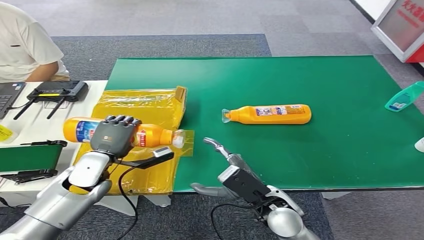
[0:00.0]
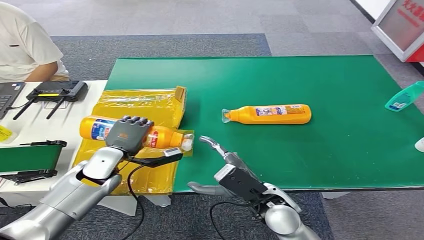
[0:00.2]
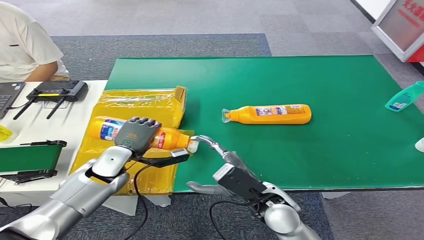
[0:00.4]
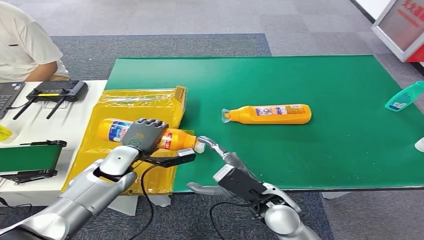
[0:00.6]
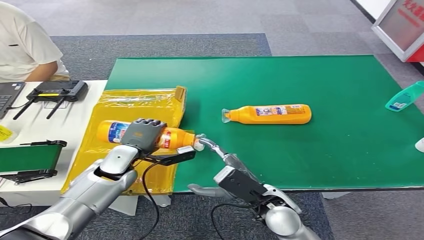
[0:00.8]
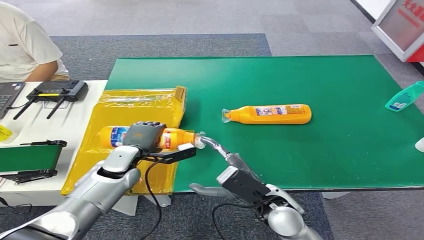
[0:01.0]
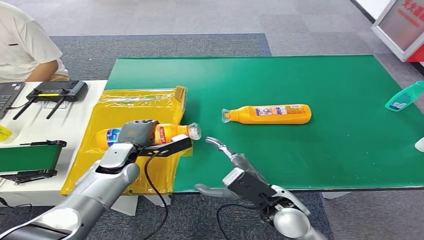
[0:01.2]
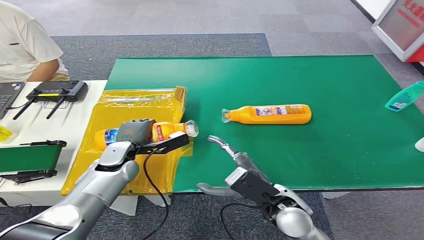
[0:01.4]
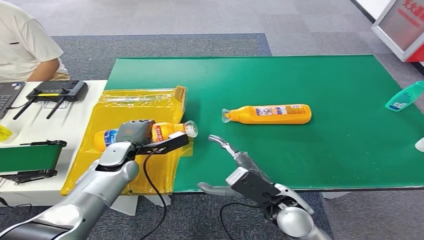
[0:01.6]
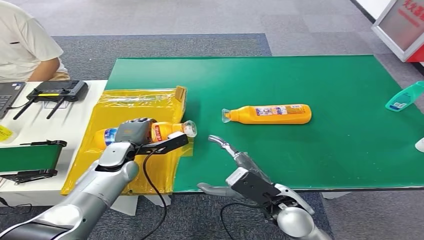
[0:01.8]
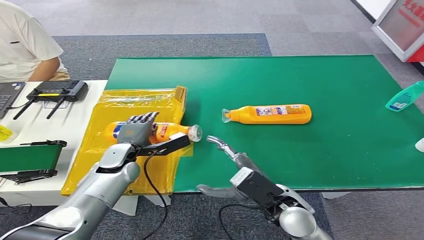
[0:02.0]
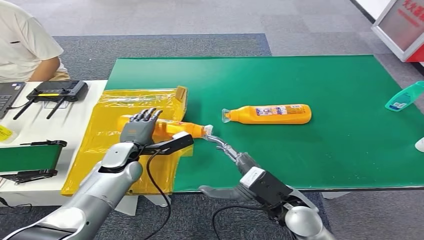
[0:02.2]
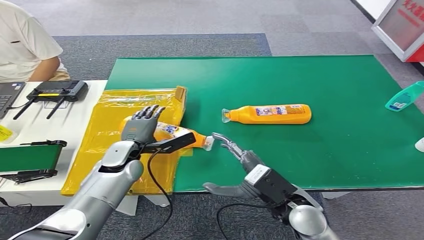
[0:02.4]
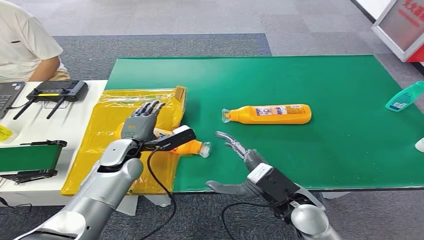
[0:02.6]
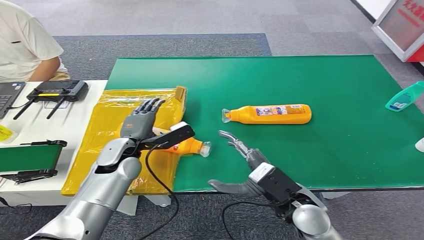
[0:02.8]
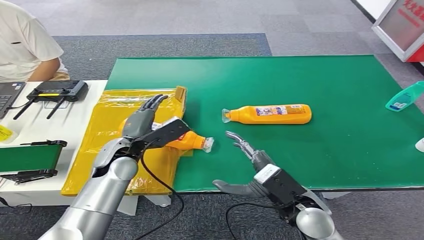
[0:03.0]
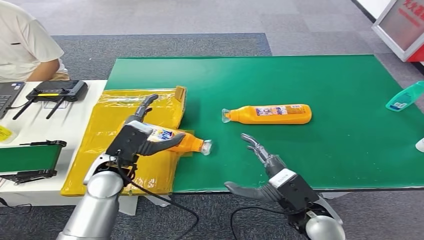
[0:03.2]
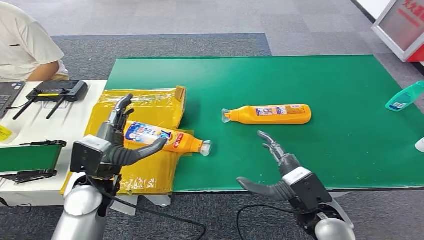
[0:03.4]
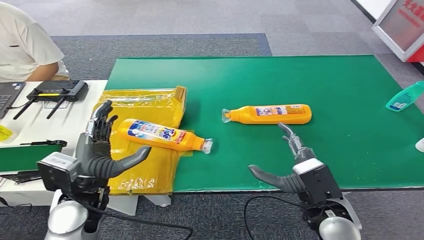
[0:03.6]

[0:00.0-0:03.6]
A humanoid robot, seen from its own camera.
Step, 0:00.0 to 0:03.6: Turn the bottle to the front side.
0:00.0 to 0:01.8: The left hand goes roughly 5 cm forward.
0:01.8 to 0:03.6: The right hand is displaced to the right by roughly 5 cm. Meanwhile the left hand is displaced backward and upward by roughly 15 cm.
